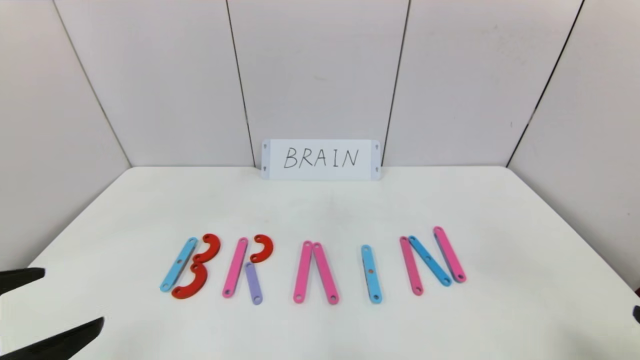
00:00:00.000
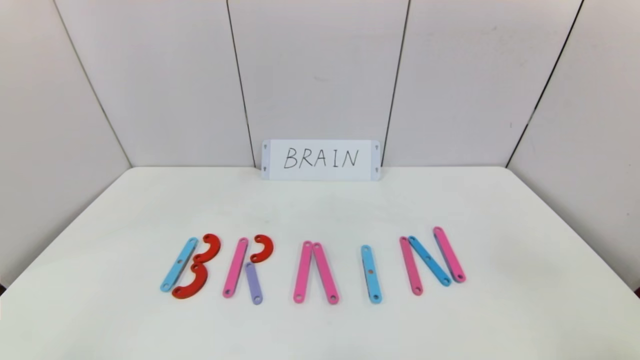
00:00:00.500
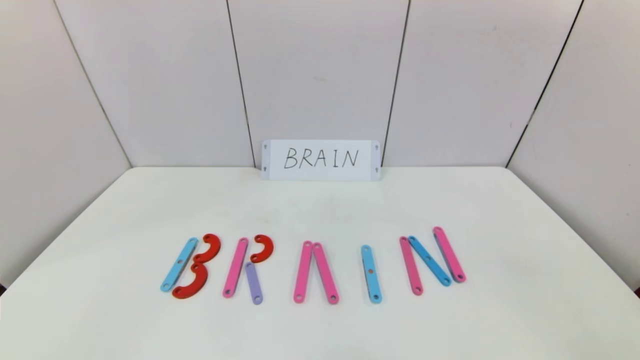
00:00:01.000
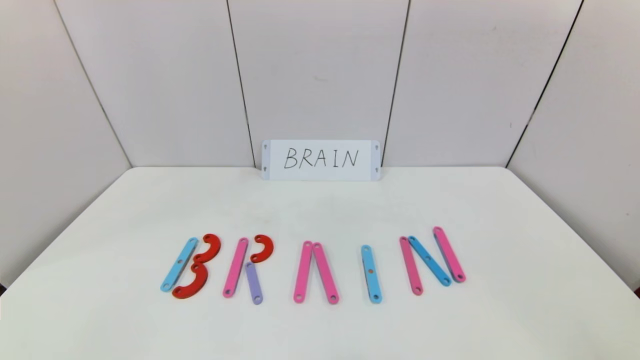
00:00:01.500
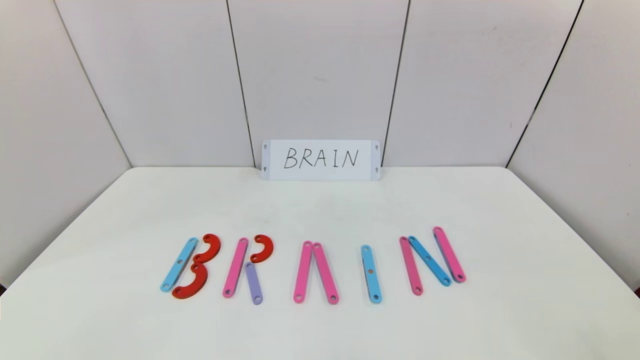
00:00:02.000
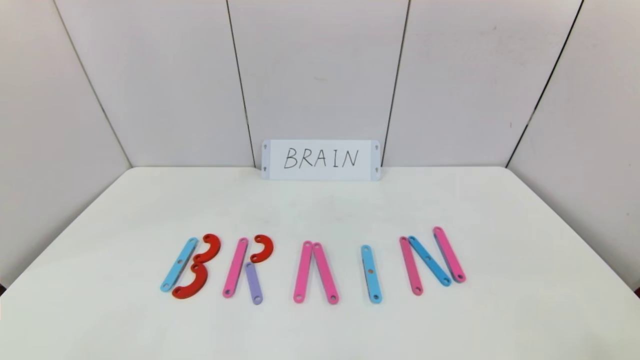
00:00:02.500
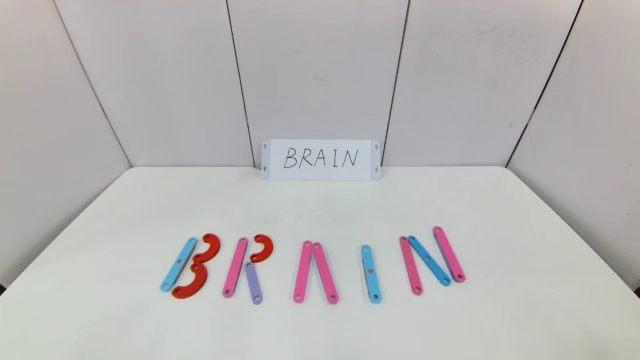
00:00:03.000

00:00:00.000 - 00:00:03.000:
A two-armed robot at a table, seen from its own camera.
Task of the whole recording: rearrange the word baai as brain.
00:00:00.000 - 00:00:01.500: The left gripper heads backward and downward, covering some 15 cm.
